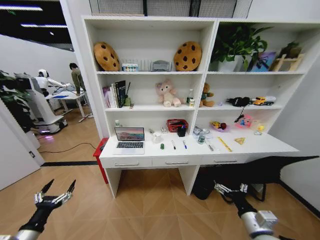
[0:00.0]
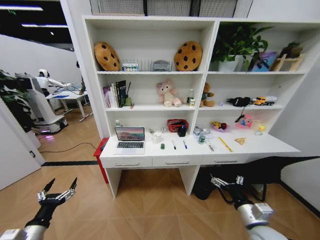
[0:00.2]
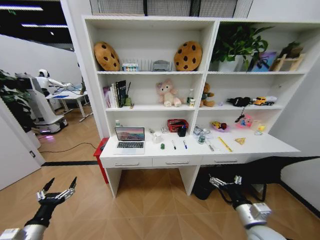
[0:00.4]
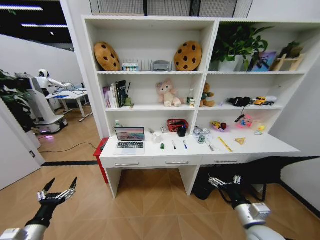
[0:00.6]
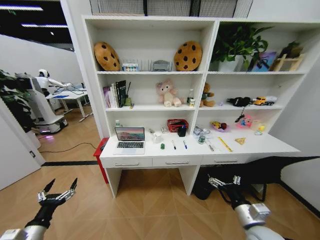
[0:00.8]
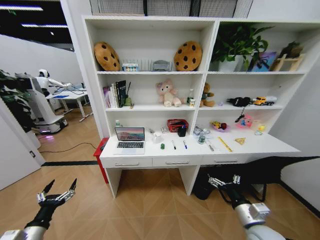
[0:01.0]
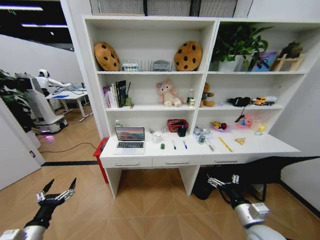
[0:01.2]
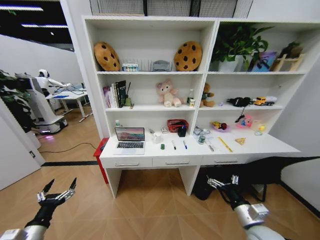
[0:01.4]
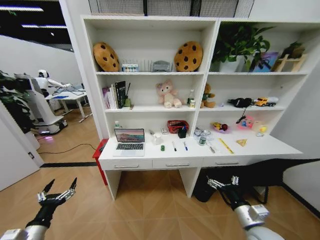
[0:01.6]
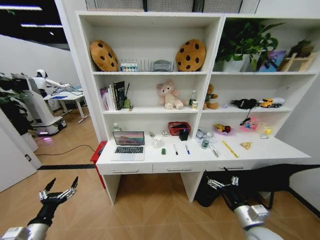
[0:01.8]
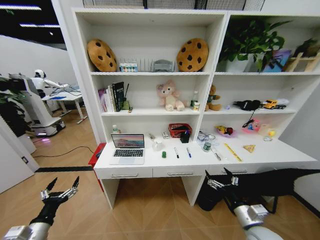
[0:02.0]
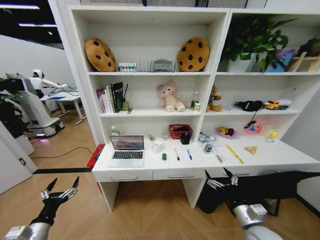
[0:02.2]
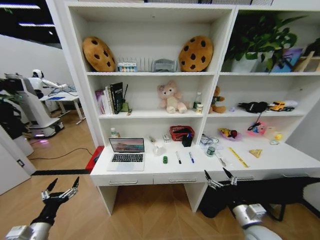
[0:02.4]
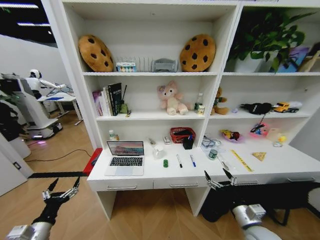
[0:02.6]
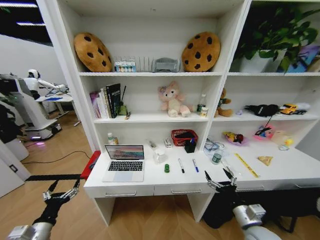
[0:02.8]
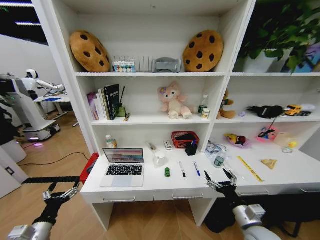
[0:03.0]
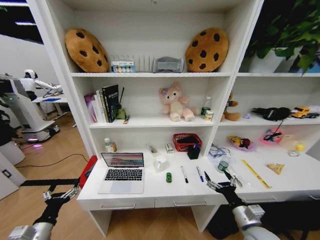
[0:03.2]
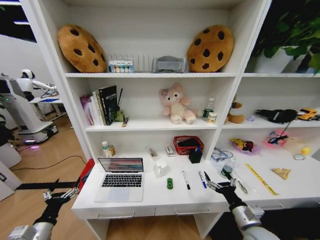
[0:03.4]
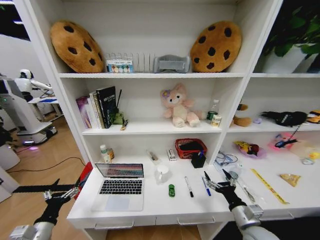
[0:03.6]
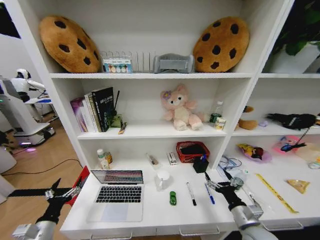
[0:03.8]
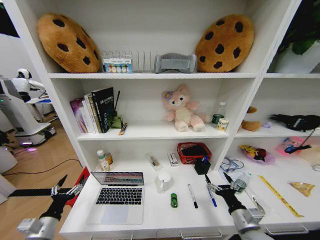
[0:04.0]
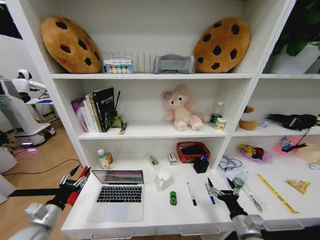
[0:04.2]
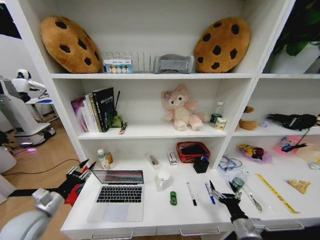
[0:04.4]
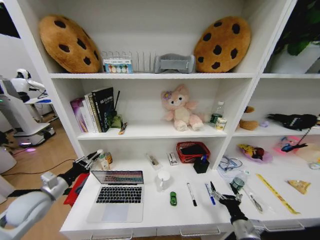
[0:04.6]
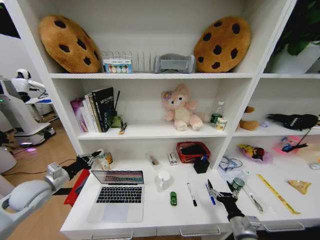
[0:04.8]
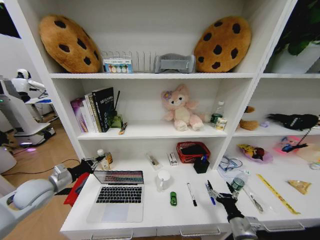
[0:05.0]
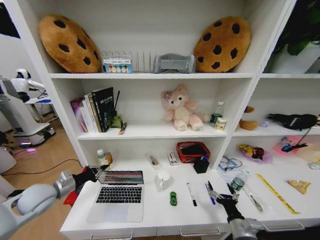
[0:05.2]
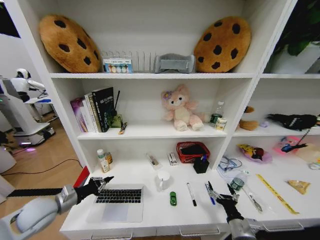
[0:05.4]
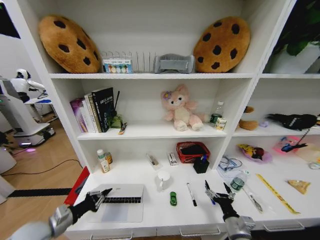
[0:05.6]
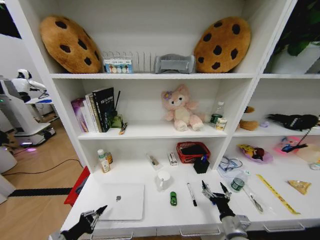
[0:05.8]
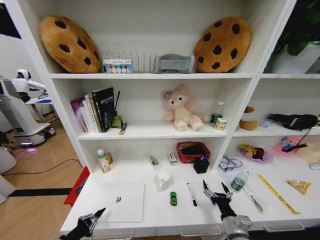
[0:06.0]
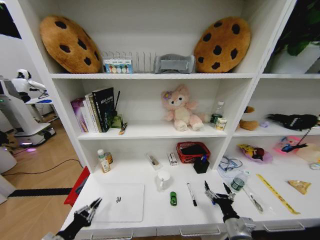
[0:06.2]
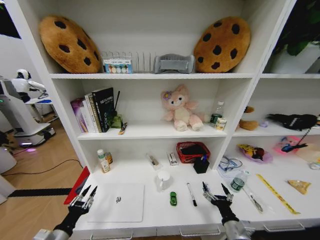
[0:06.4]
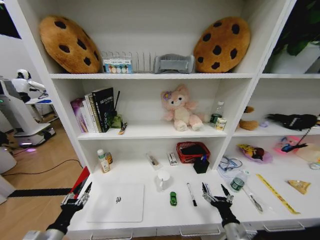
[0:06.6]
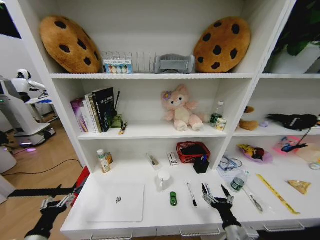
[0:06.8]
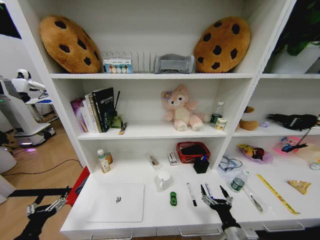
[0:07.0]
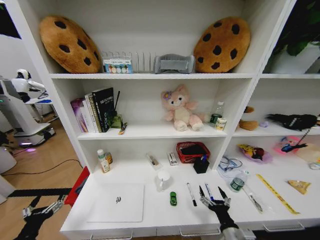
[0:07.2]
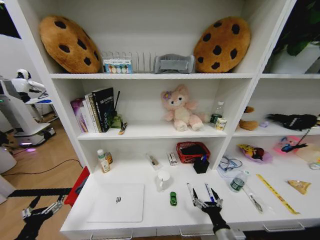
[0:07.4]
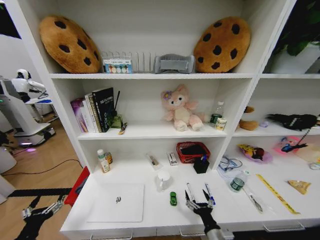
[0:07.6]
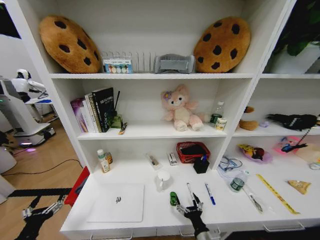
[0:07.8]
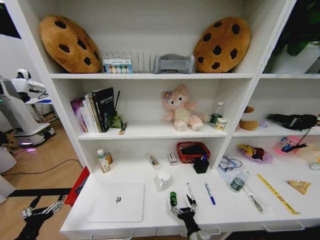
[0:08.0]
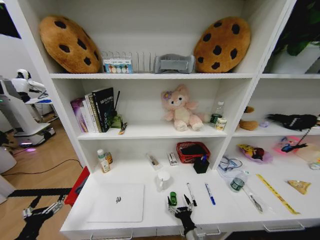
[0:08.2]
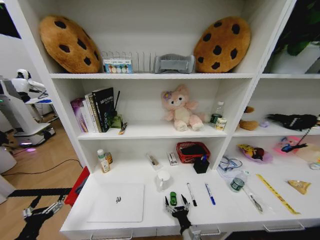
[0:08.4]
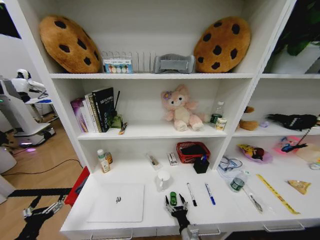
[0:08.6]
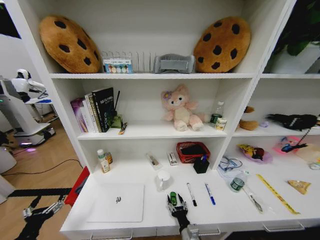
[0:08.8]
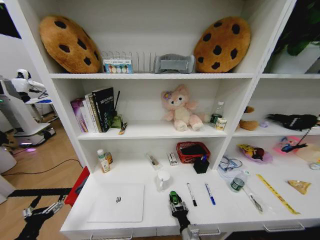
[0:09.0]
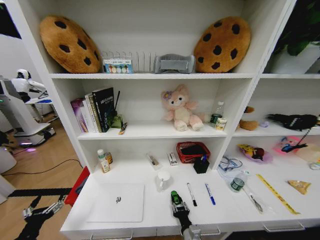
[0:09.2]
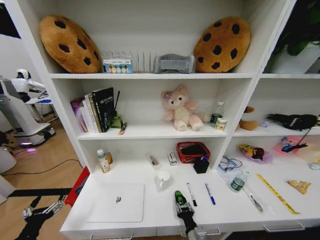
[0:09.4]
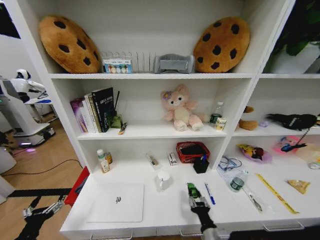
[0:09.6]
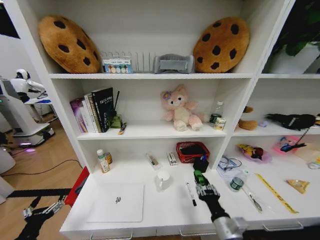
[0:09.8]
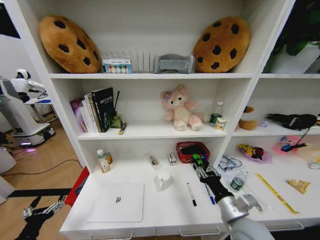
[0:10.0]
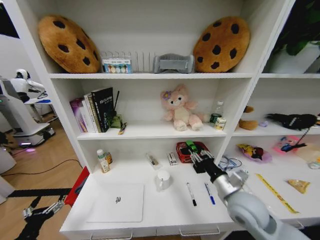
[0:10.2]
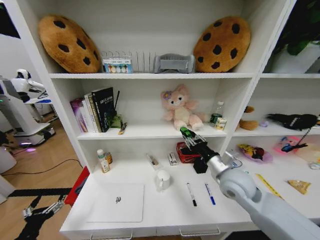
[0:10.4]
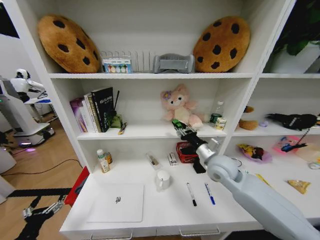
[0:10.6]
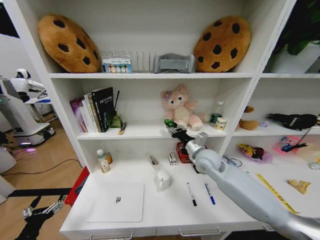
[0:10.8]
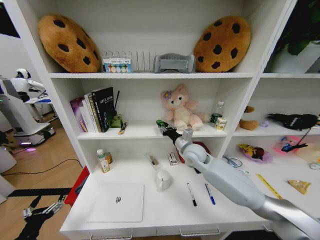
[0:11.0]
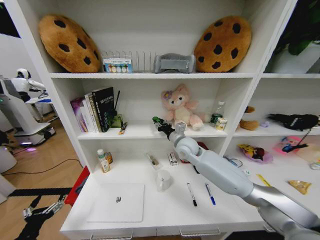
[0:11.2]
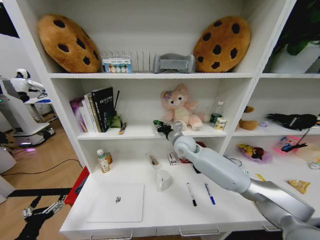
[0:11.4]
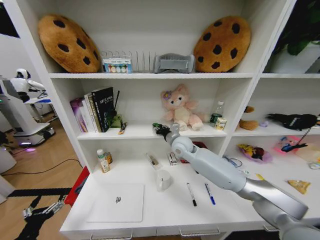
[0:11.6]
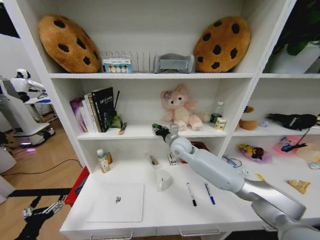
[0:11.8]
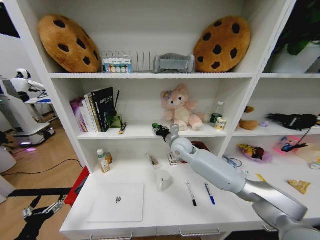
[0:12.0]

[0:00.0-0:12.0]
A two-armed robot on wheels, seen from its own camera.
Task of the whole recording: Organize the objects on the table.
0:03.0 to 0:04.4: The right gripper changes place by approximately 5 cm. Meanwhile the left gripper shifts some 10 cm forward and upward, and closes up.
0:04.4 to 0:06.0: The left gripper moves backward and downward, some 15 cm, and closes its fingers.
0:06.0 to 0:07.6: The left gripper ends up some 5 cm from where it was, and opens, while the right gripper goes roughly 5 cm to the left.
0:07.6 to 0:09.0: The right gripper travels to the left and downward by approximately 10 cm, and closes its fingers.
0:09.0 to 0:10.4: The right gripper heads upward, forward and to the right, covering about 30 cm.
0:10.4 to 0:12.0: The right gripper travels forward and to the left by some 25 cm.

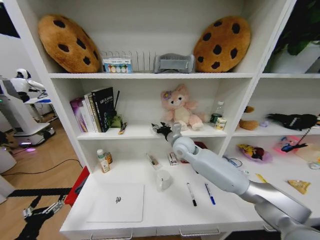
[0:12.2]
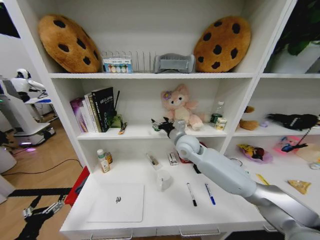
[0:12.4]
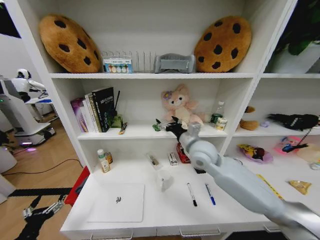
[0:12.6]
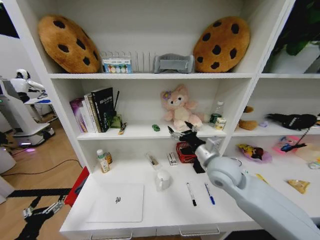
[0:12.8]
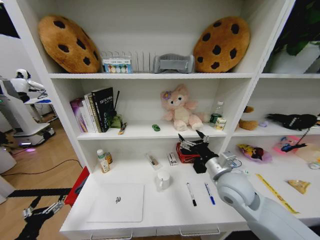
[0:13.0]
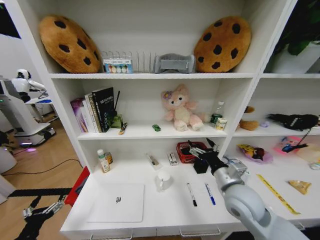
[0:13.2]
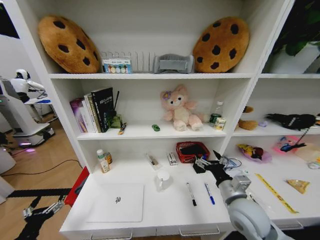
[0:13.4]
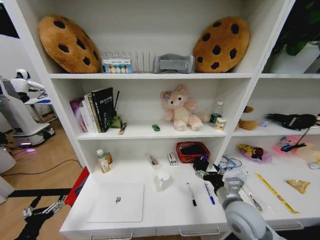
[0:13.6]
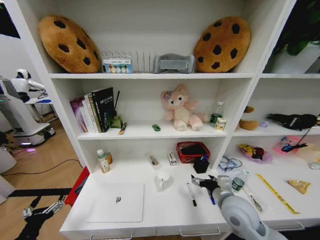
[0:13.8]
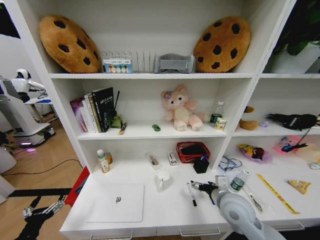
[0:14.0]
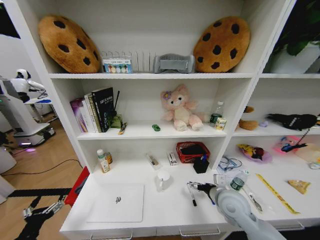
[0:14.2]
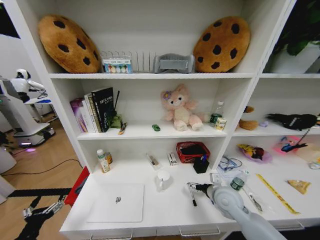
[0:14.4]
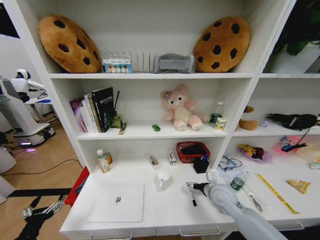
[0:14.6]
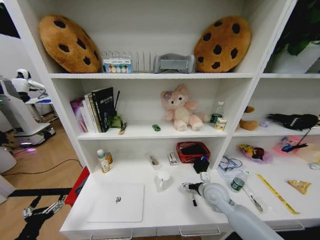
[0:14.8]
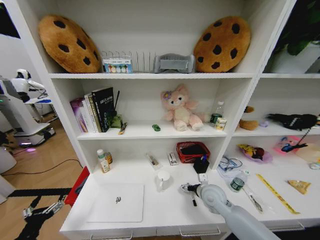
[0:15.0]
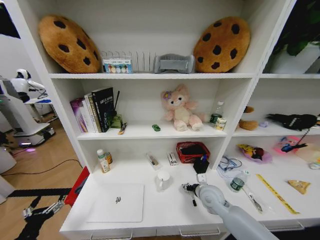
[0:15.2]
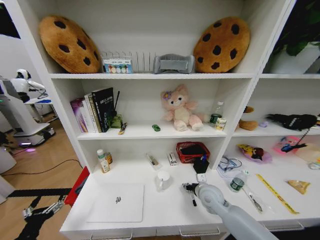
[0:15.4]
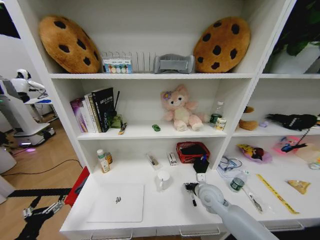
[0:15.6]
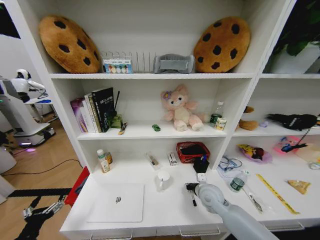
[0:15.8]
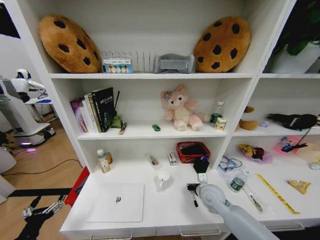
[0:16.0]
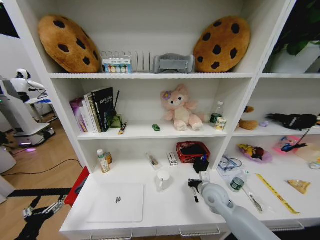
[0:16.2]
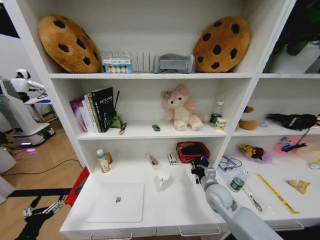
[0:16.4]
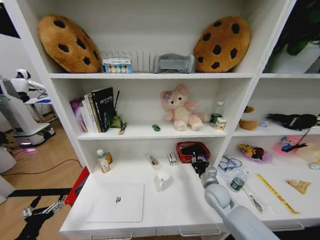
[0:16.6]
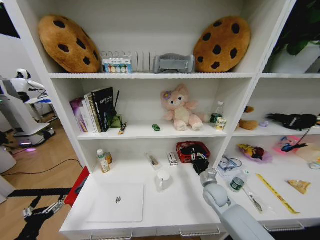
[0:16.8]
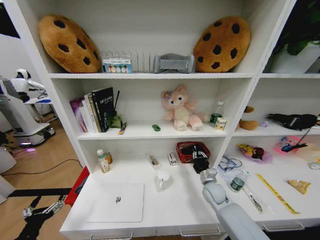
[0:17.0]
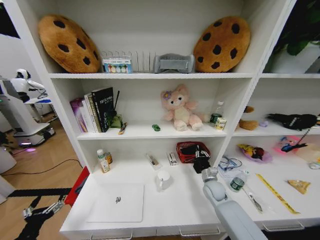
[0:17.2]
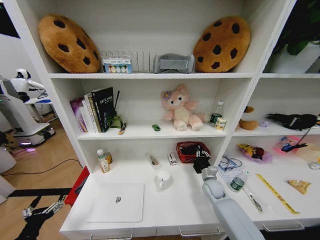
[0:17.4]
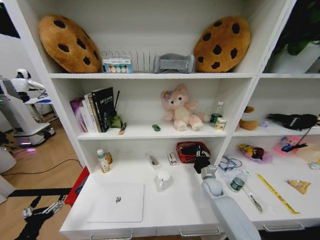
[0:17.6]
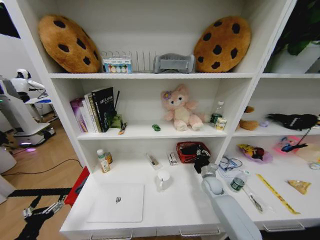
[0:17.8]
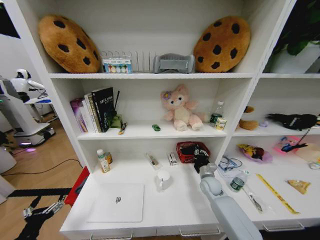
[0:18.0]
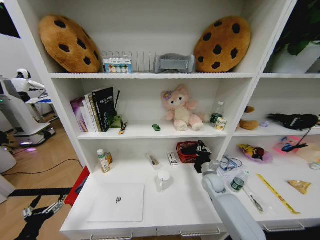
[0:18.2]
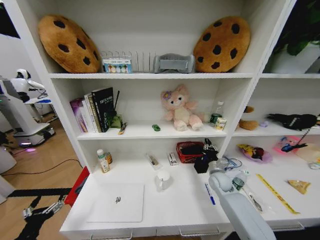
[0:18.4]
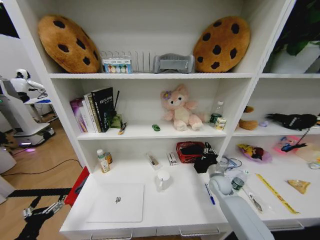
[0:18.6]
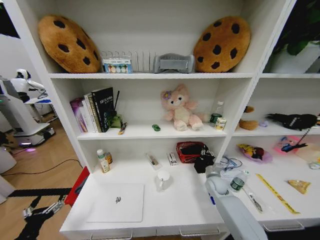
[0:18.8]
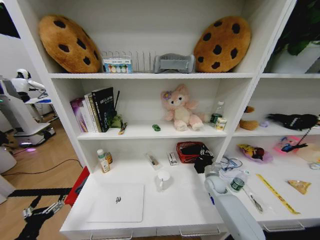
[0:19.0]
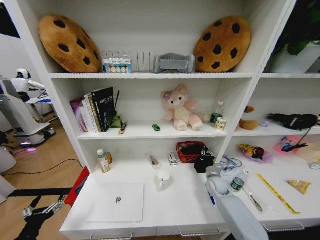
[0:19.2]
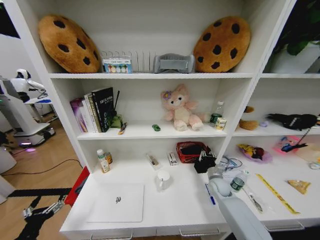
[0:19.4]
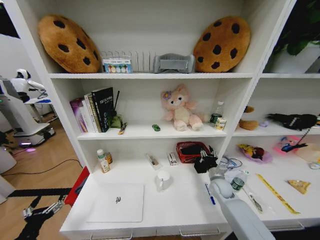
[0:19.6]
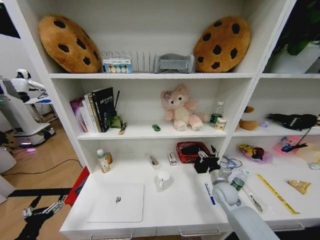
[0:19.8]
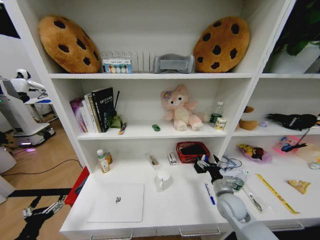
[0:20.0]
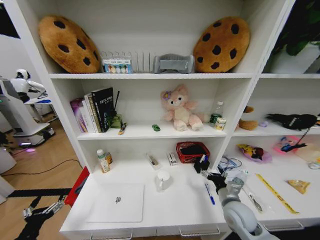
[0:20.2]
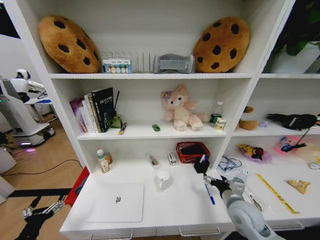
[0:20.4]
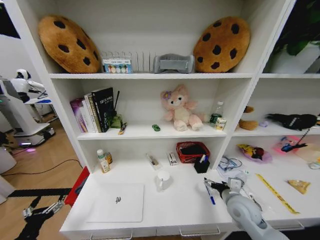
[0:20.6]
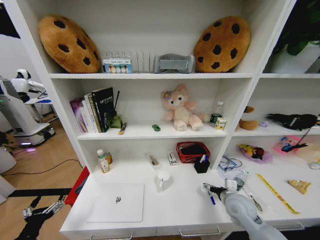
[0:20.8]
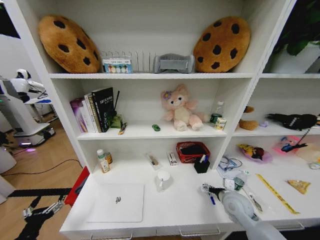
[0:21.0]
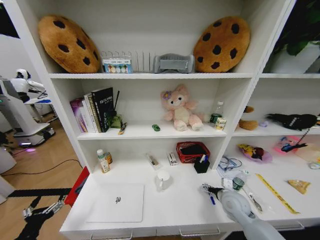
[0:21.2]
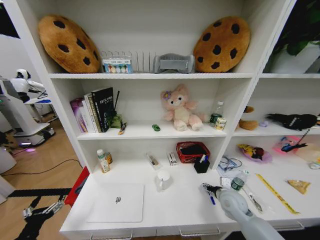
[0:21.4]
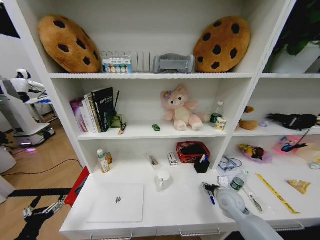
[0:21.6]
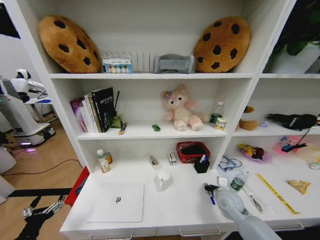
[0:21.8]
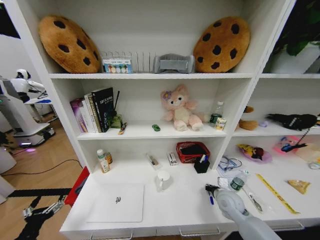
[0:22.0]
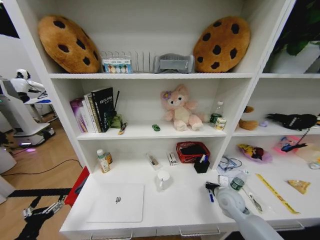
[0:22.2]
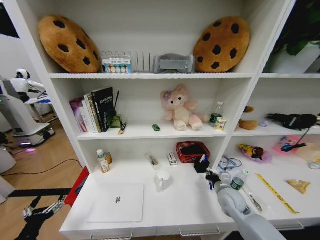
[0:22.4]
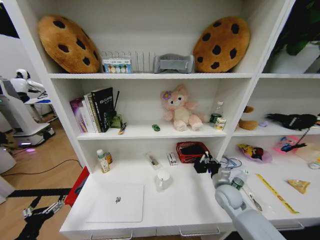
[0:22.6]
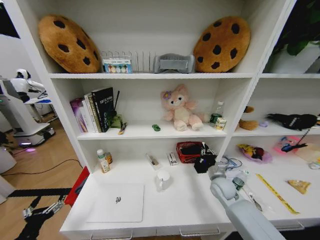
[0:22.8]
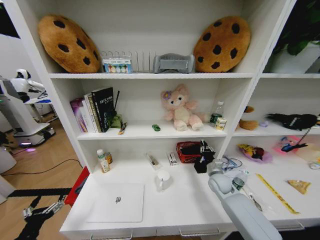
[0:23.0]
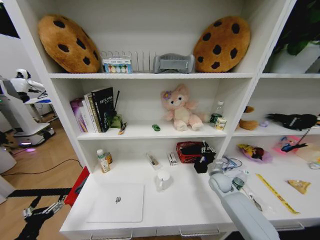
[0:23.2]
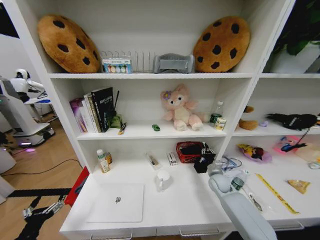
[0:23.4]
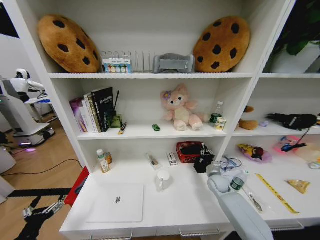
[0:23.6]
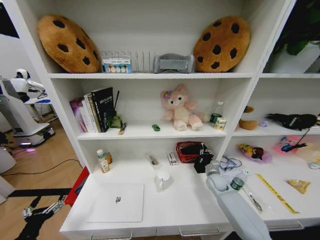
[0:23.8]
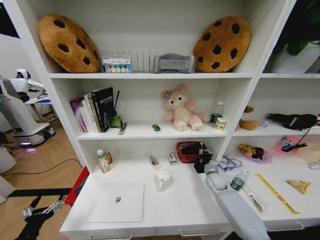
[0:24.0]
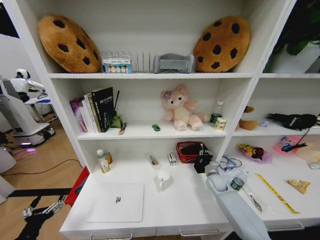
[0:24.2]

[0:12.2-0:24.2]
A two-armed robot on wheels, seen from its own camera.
Task of the whole recording: Organize the objects on the table.
0:12.2 to 0:13.8: The right gripper is displaced backward and to the right by approximately 25 cm, and opens.
0:13.8 to 0:15.2: The right gripper travels downward and forward by roughly 10 cm.
0:15.2 to 0:16.6: The right gripper closes up.
0:16.6 to 0:18.2: The right gripper heads forward, covering some 5 cm.
0:18.2 to 0:19.8: The right gripper shifts roughly 5 cm backward, and opens up.
0:21.2 to 0:22.6: The right gripper closes up.
0:22.6 to 0:24.2: The right gripper moves forward and downward, about 10 cm.
